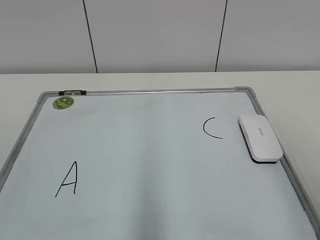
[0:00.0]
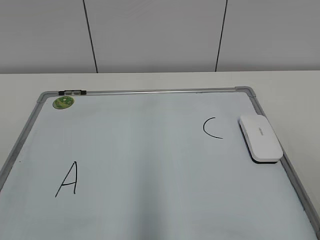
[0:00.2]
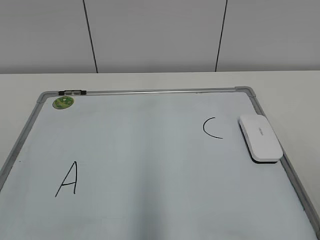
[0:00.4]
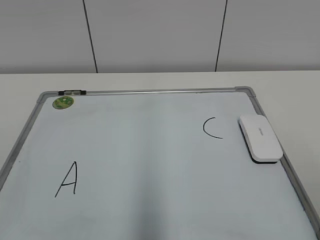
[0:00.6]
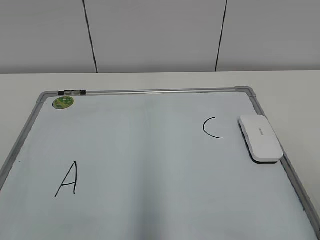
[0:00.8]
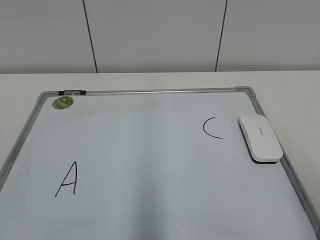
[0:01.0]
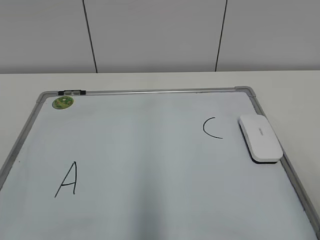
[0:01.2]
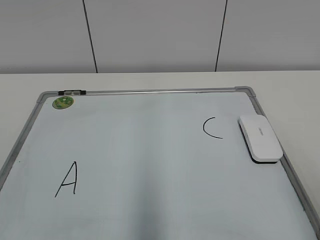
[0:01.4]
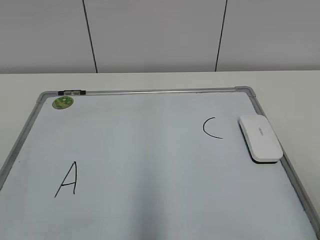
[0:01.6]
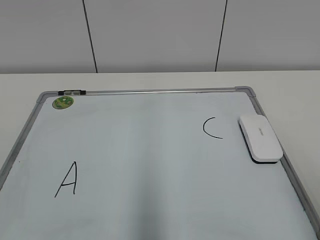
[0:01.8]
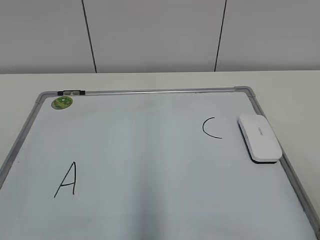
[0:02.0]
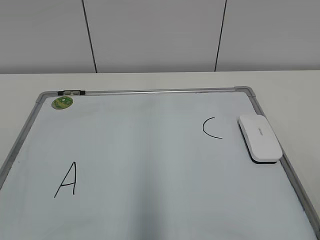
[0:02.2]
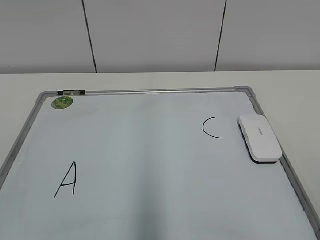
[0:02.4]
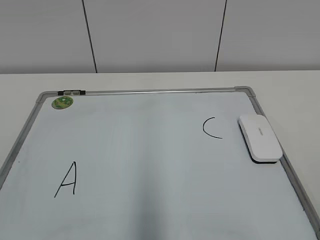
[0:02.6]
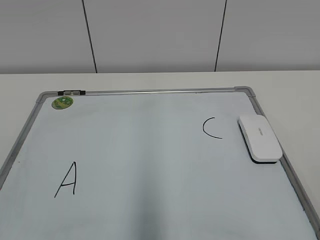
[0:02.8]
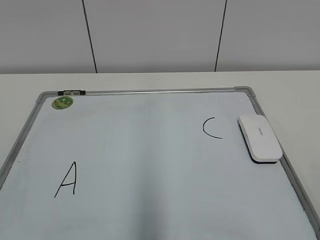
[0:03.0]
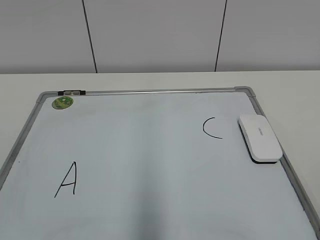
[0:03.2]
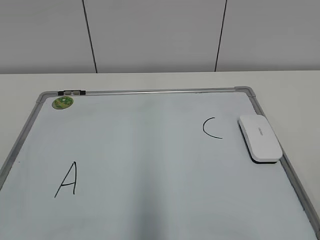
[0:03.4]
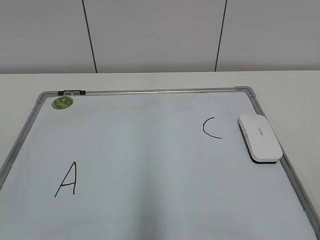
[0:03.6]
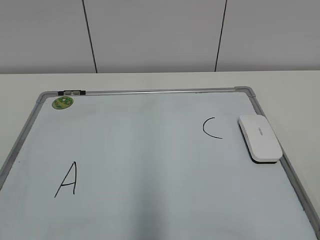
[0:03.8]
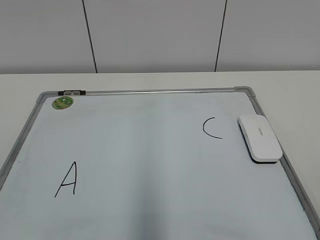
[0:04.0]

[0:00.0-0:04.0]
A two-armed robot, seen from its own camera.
Task of the whole recording: pick up the eraser on the blackboard and erase the letter "B".
0:02.6 to 0:04.0: Both grippers stay about where they are.

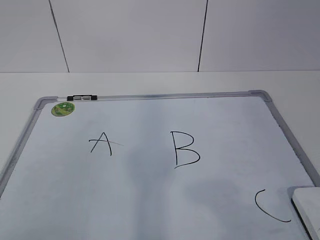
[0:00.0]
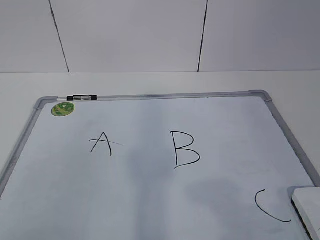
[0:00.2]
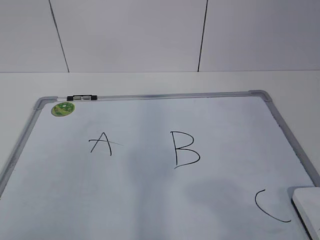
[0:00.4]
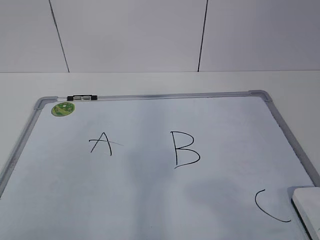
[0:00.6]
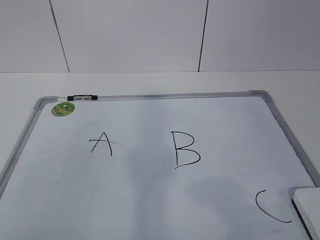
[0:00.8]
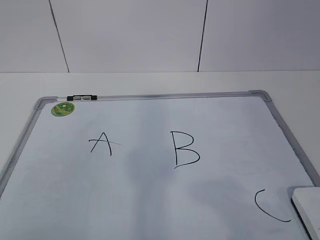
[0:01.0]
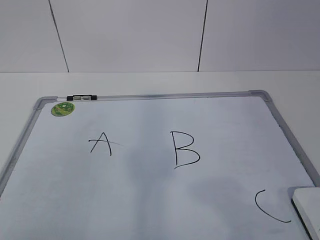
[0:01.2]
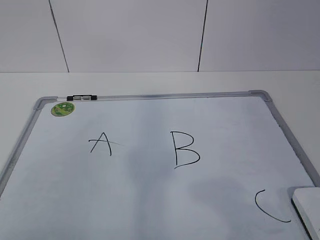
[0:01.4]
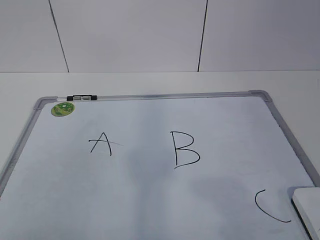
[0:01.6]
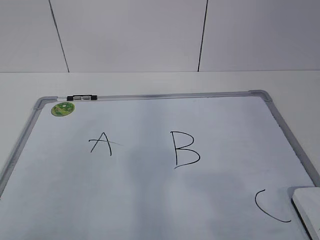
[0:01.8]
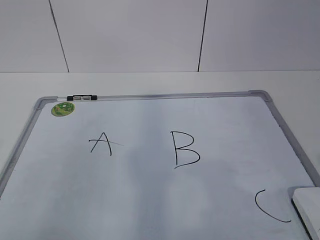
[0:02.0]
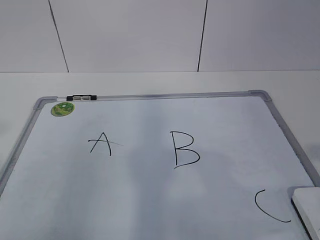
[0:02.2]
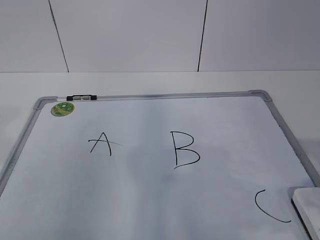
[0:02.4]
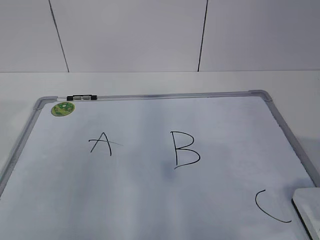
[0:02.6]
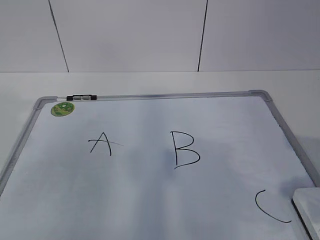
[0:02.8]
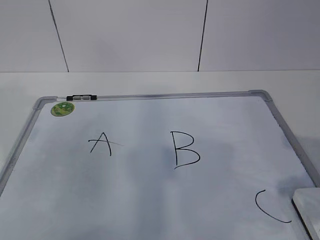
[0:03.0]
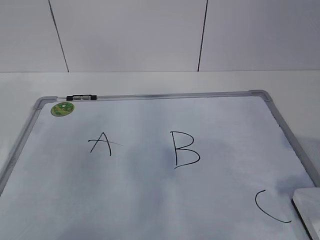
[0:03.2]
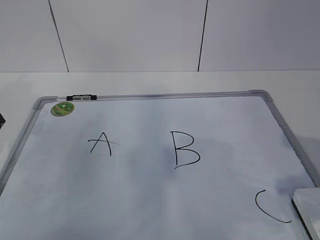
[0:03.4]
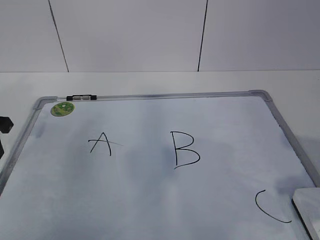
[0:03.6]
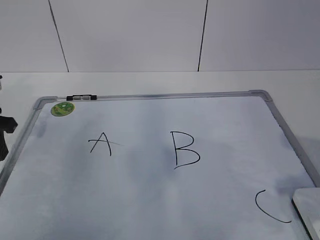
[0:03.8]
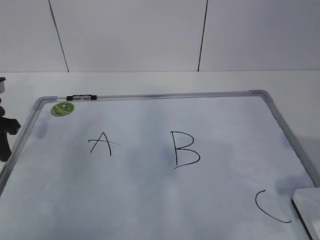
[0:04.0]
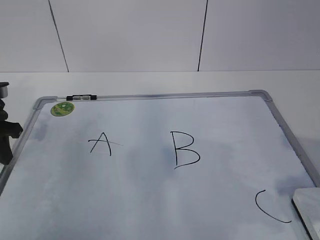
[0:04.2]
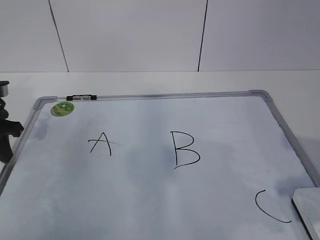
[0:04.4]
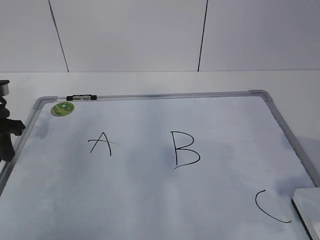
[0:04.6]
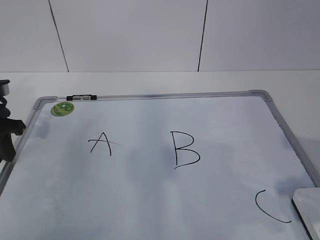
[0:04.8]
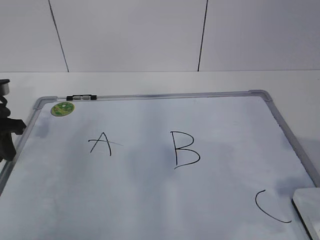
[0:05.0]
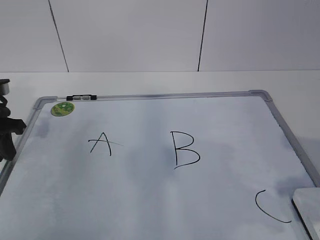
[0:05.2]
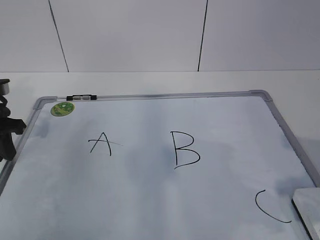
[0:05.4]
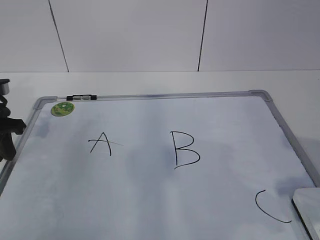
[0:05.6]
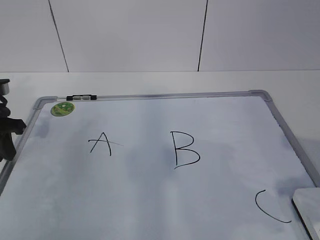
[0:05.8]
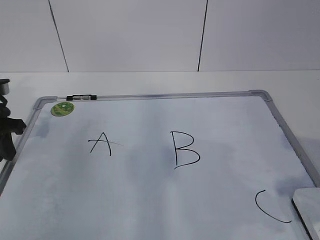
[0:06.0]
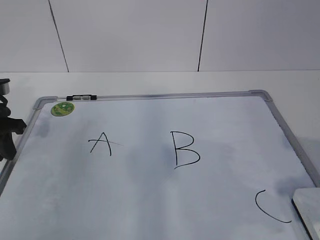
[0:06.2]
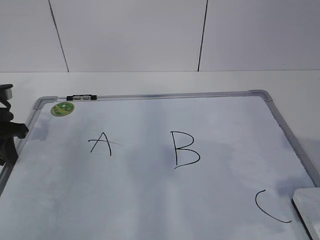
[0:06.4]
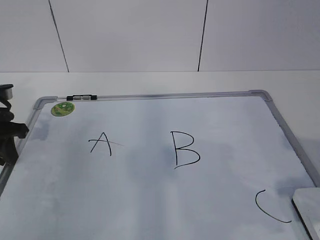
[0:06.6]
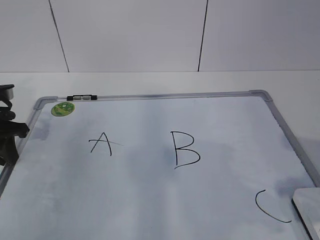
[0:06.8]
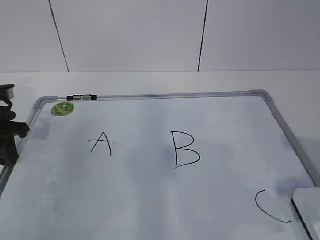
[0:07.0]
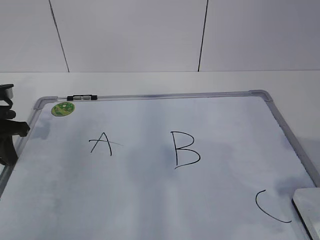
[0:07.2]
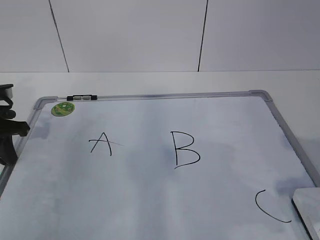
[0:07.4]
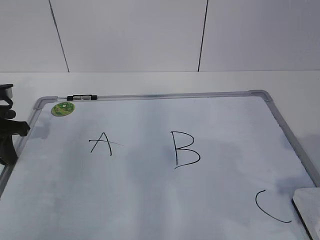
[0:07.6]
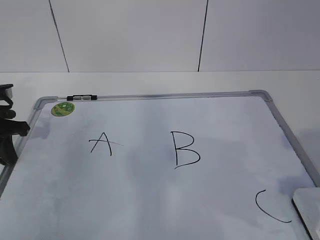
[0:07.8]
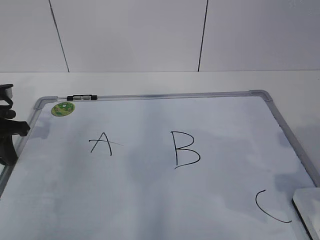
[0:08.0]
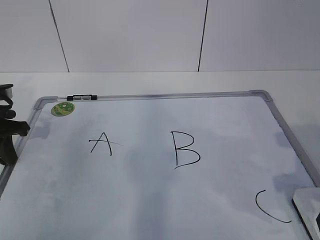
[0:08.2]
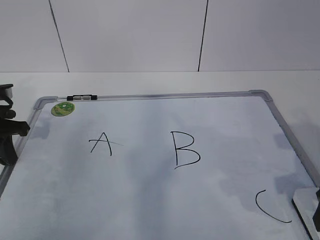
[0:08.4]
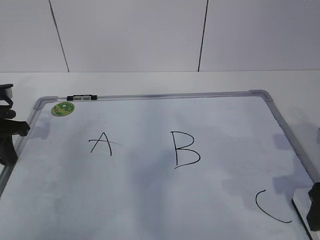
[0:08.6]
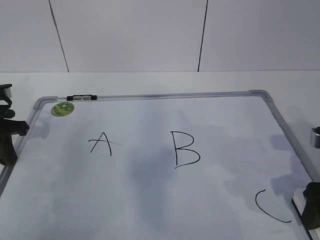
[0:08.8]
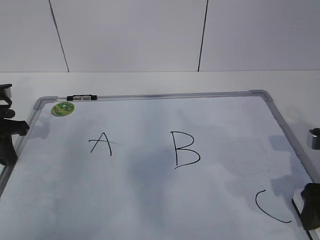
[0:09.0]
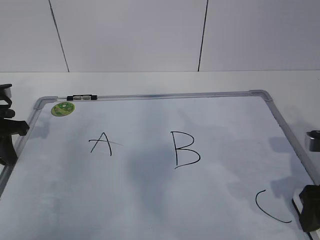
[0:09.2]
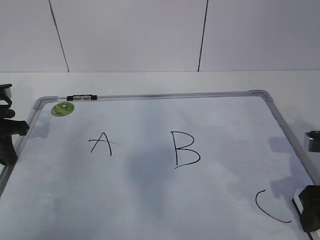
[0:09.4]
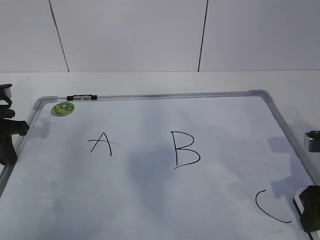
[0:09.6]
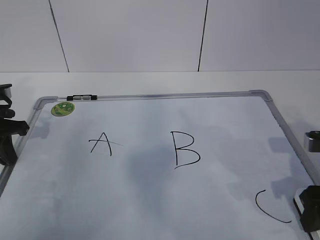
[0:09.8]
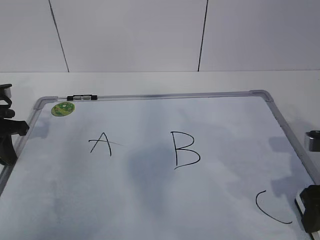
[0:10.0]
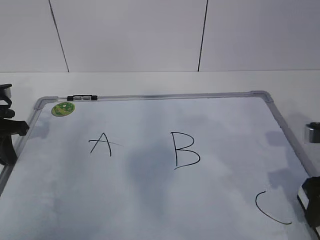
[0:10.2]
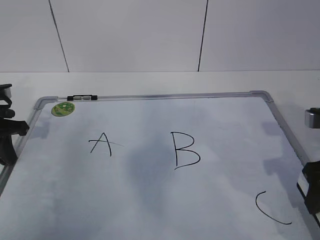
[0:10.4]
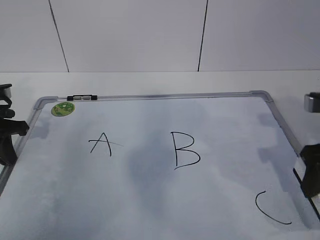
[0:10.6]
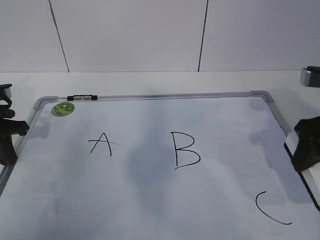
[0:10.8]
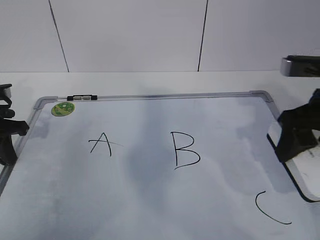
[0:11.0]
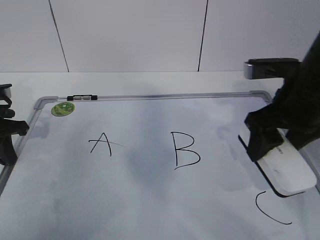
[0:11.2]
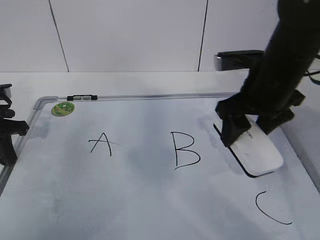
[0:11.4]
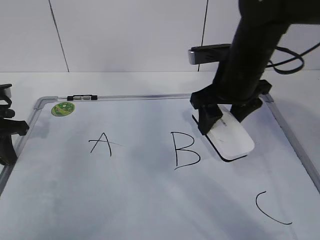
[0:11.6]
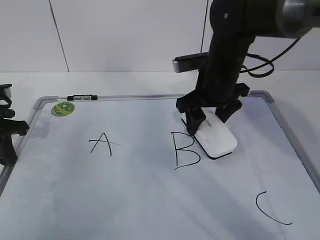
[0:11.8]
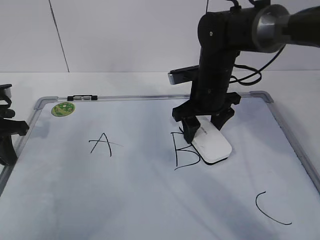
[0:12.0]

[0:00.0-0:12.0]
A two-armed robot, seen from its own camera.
Task of the whole recording: pick up the eraser on the blackboard and erase the letter "B".
0:01.6 to 0:03.0: The right gripper goes some 10 cm forward.
0:03.0 to 0:04.4: The left gripper is displaced downward and forward by approximately 10 cm.
0:04.4 to 0:06.0: The two grippers keep their place.
0:06.0 to 0:07.6: The left gripper closes its fingers.
0:07.6 to 0:09.0: The right gripper heads forward and downward, covering approximately 10 cm.
0:09.0 to 0:10.4: The grippers stay close to where they were, moving slightly.
0:10.4 to 0:12.0: The right gripper shifts roughly 25 cm forward and to the left.

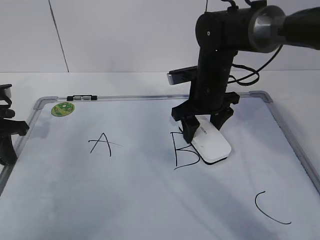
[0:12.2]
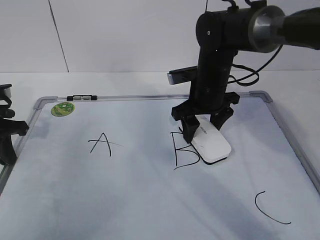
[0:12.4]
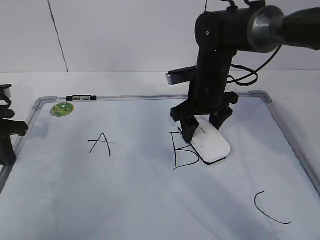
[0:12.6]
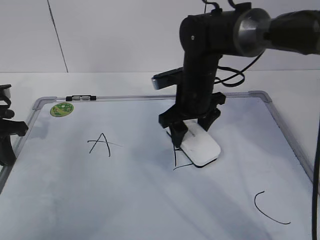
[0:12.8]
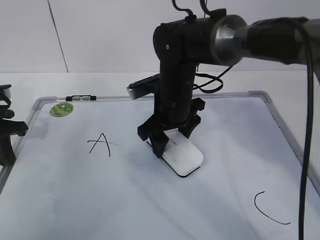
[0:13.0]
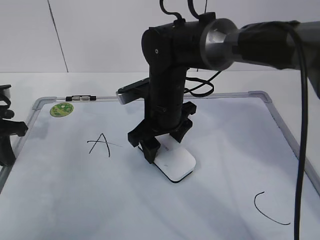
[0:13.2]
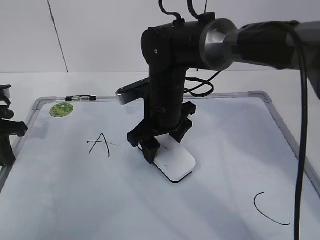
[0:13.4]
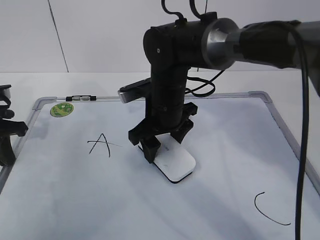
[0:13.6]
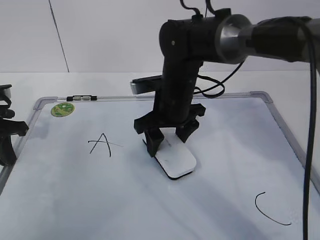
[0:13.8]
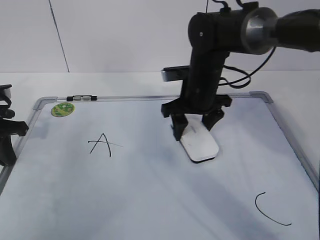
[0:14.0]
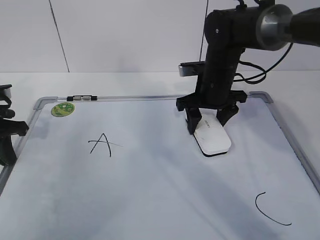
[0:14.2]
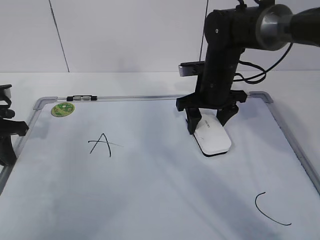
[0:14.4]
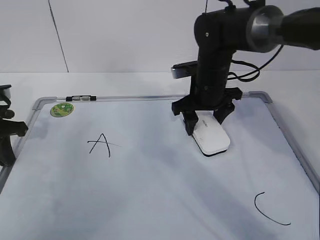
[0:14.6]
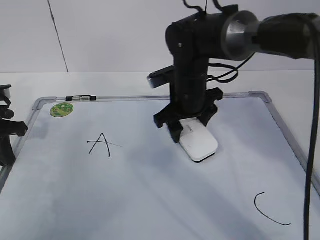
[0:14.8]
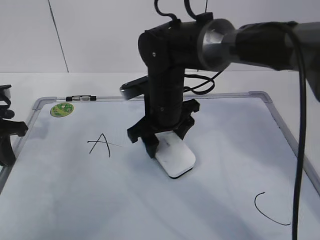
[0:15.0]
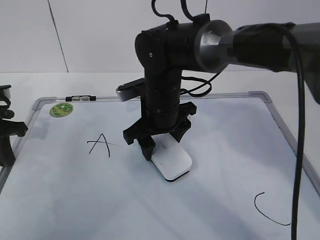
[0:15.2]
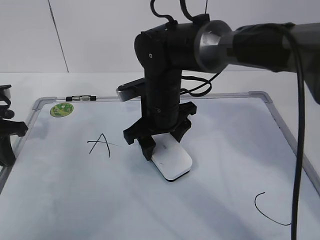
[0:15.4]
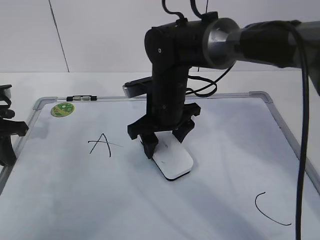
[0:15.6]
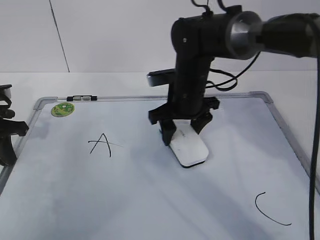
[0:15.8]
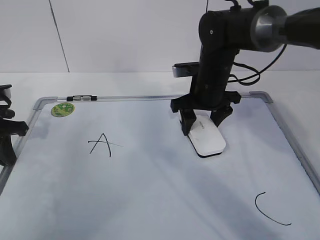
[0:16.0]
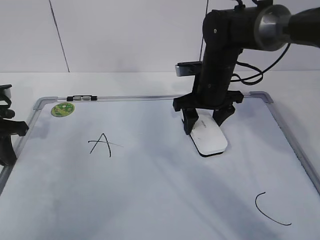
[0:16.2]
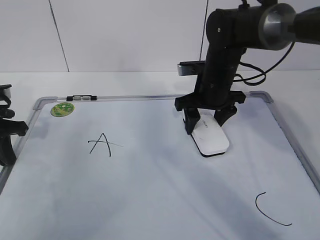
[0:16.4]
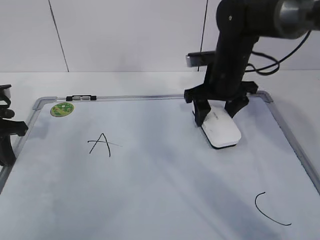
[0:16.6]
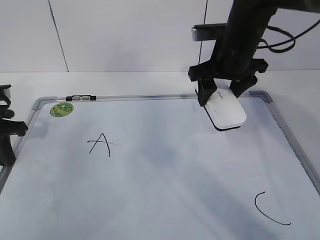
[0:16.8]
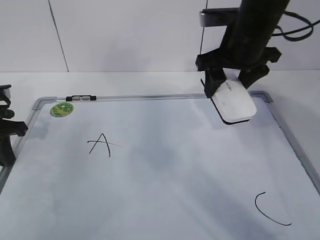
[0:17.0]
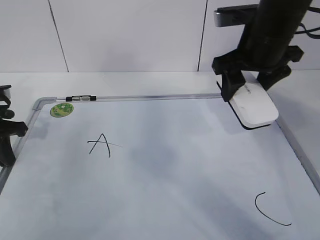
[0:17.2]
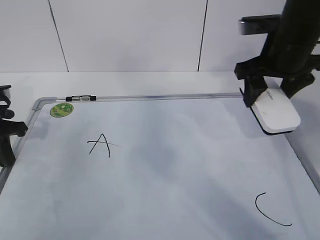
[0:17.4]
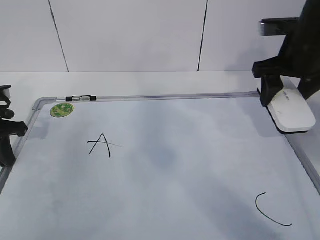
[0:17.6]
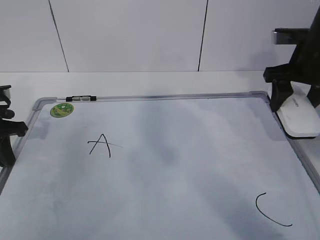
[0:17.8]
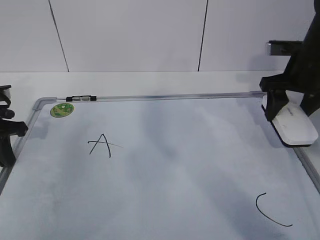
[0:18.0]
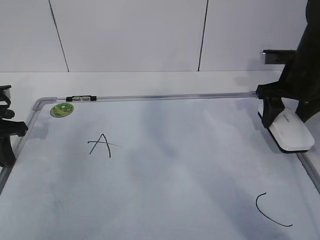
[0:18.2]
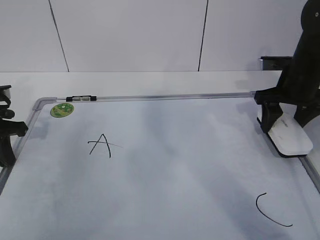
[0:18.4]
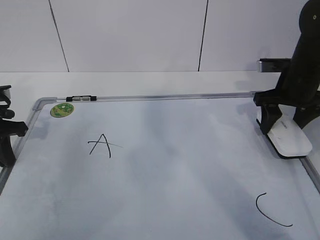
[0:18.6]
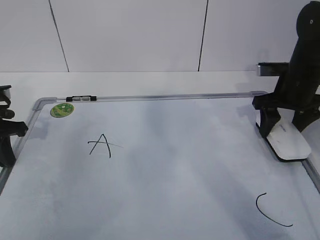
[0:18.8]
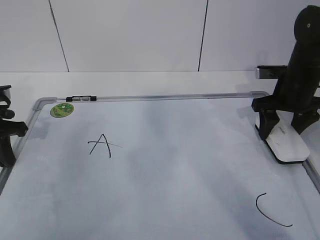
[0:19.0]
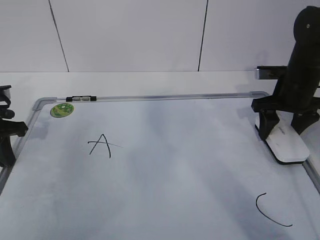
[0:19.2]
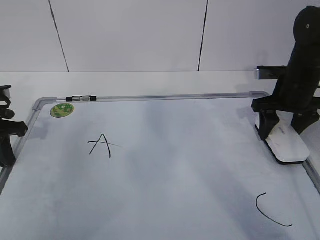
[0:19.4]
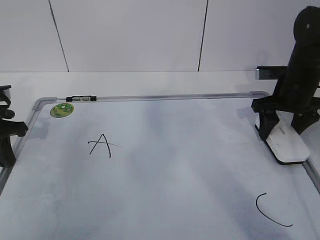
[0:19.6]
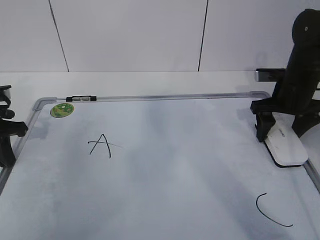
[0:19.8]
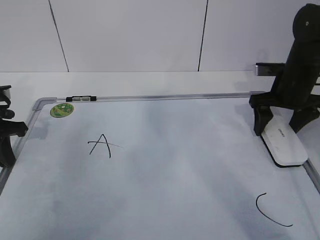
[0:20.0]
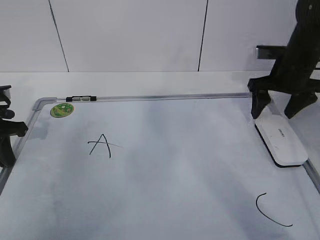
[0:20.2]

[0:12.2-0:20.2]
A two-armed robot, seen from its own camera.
Task of the whole recording: pick up the eraser on the blackboard and erase the letter "B".
Step, 0:13.6 to 0:16.4: Put down the eraser with your right hand.
0:12.2 to 0:13.8: The right gripper heads to the left, covering roughly 5 cm.
0:13.8 to 0:15.4: The right gripper moves roughly 10 cm to the right and comes back.
0:15.4 to 0:17.0: The right gripper moves to the right and upward, some 20 cm.
0:17.0 to 0:18.6: The right gripper shifts roughly 15 cm to the right and downward.
0:18.6 to 0:20.2: The grippers stay close to where they were, moving slightly.
